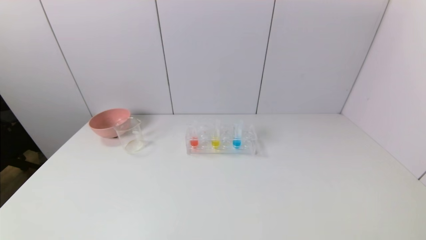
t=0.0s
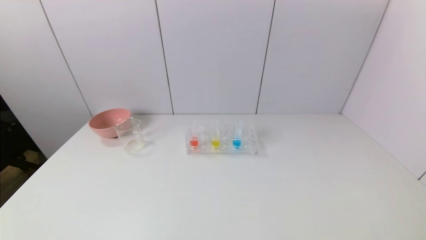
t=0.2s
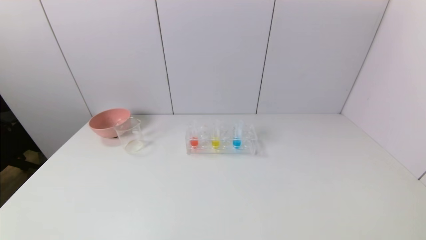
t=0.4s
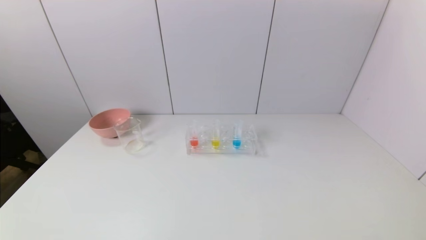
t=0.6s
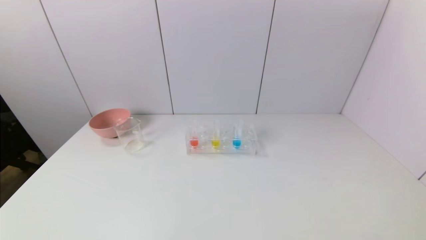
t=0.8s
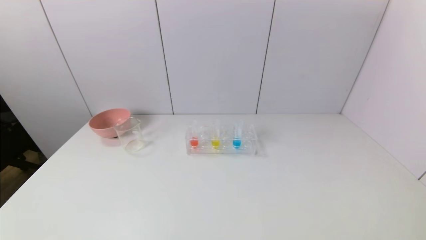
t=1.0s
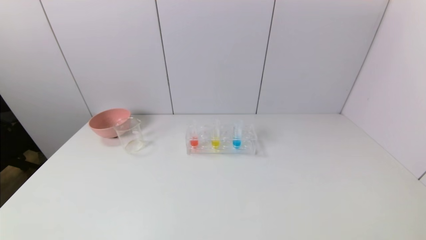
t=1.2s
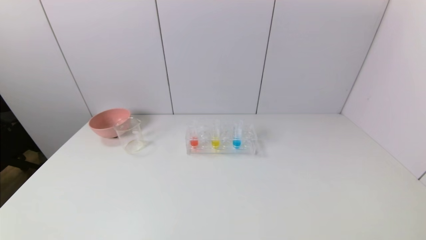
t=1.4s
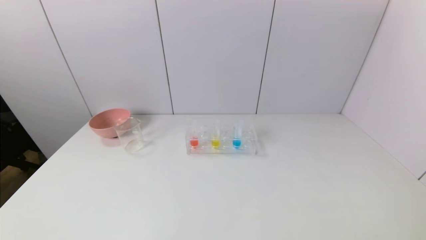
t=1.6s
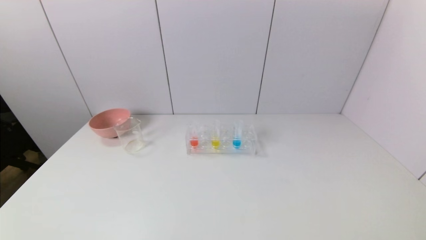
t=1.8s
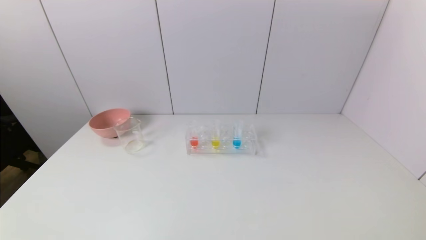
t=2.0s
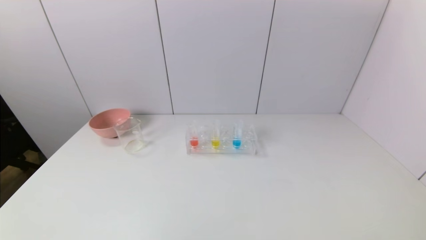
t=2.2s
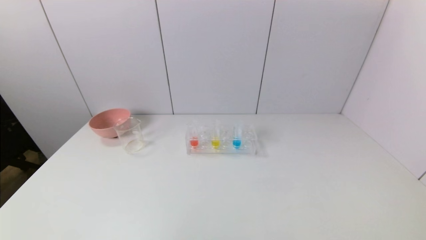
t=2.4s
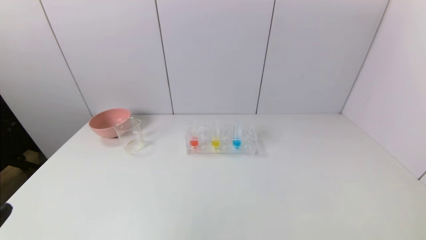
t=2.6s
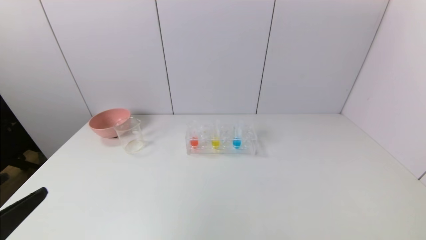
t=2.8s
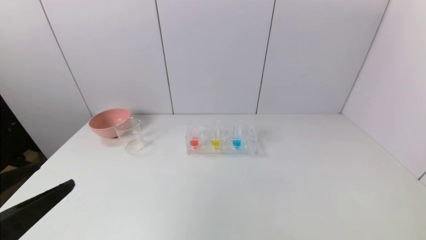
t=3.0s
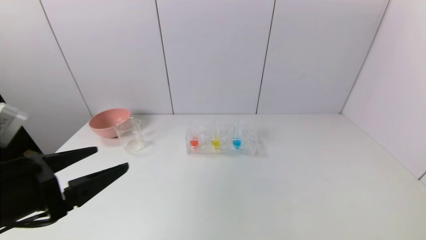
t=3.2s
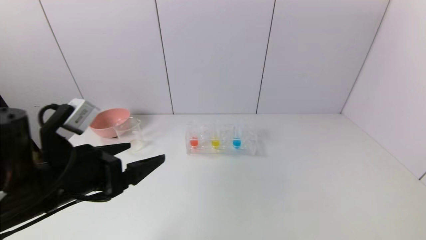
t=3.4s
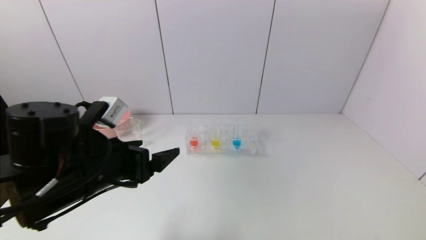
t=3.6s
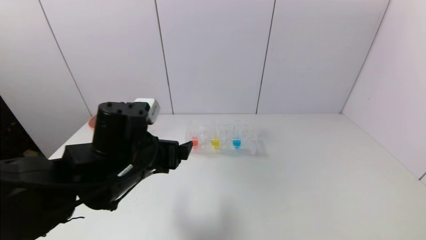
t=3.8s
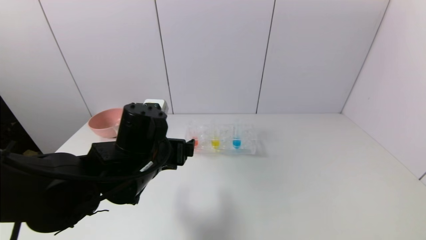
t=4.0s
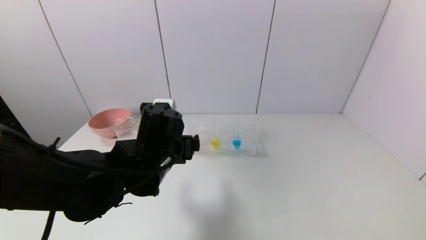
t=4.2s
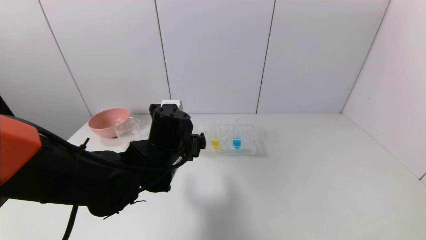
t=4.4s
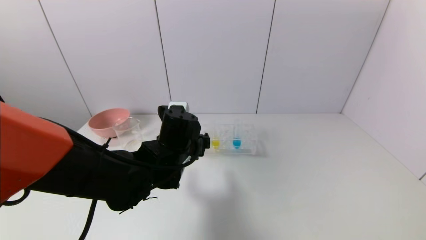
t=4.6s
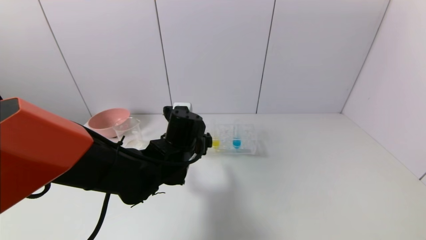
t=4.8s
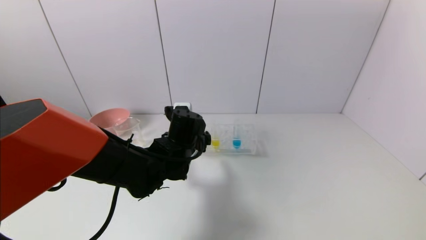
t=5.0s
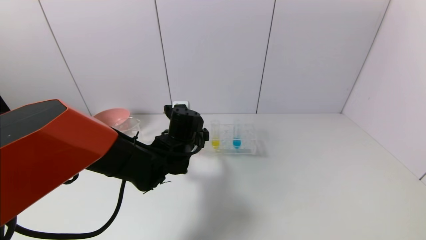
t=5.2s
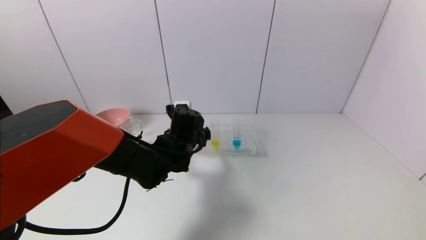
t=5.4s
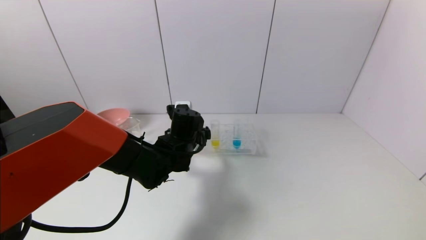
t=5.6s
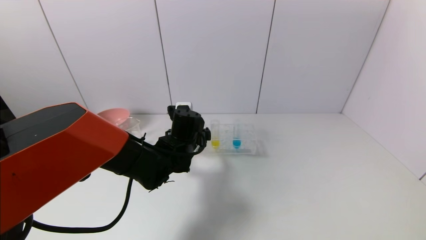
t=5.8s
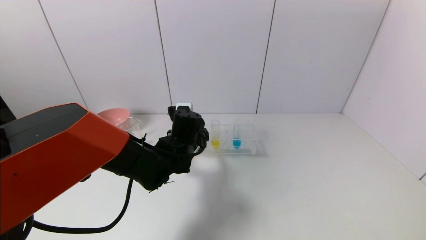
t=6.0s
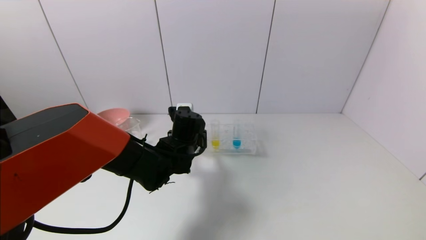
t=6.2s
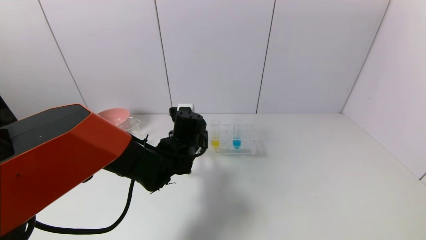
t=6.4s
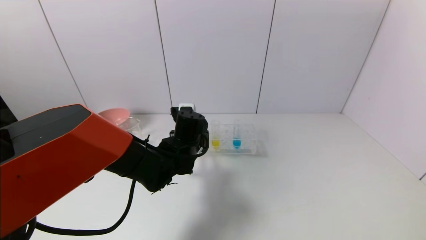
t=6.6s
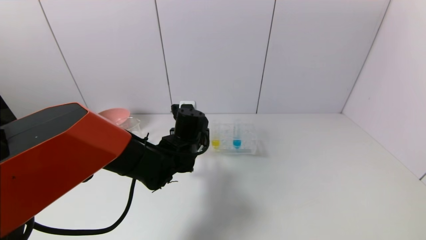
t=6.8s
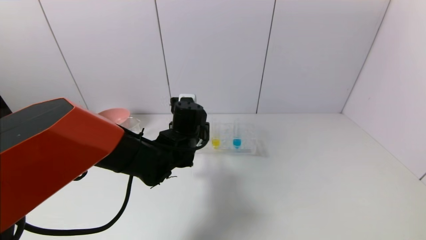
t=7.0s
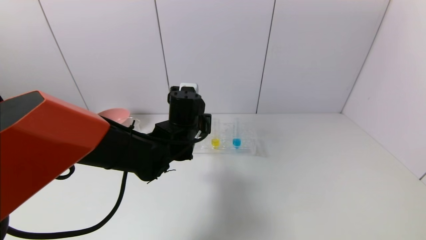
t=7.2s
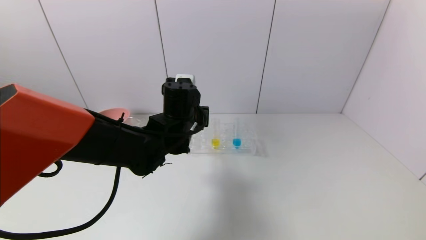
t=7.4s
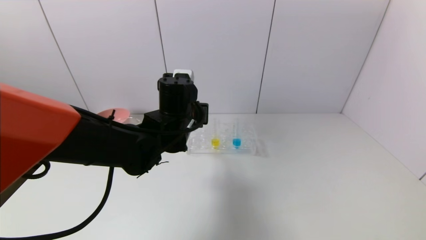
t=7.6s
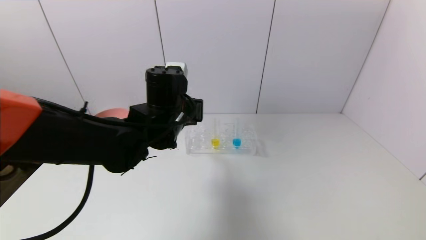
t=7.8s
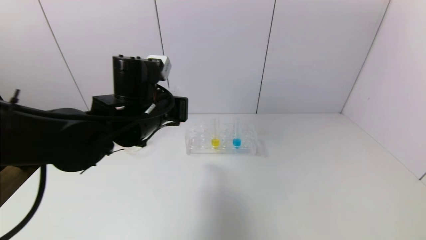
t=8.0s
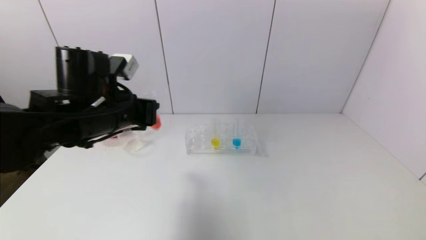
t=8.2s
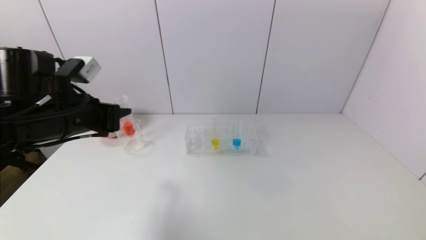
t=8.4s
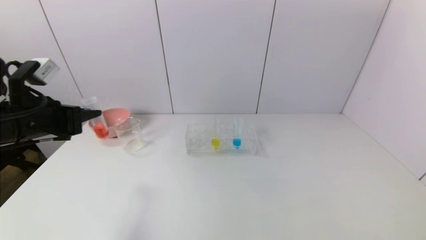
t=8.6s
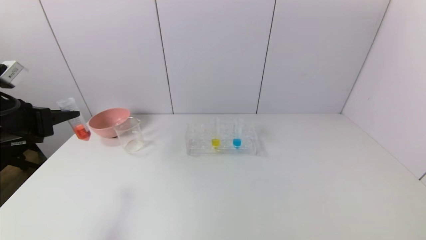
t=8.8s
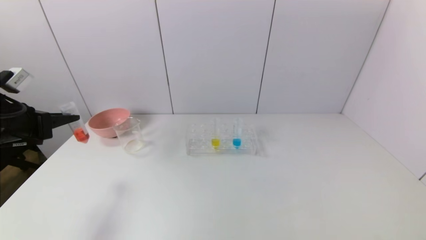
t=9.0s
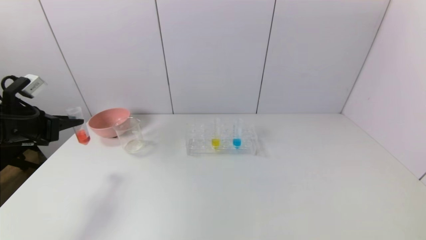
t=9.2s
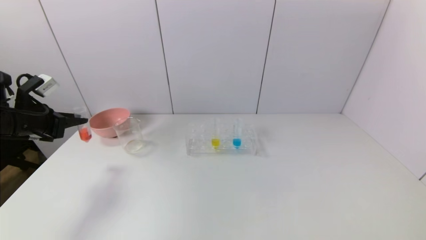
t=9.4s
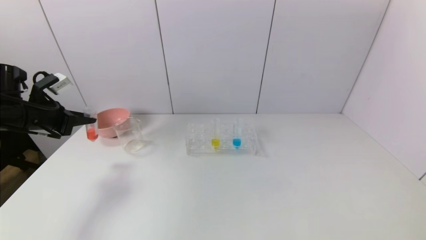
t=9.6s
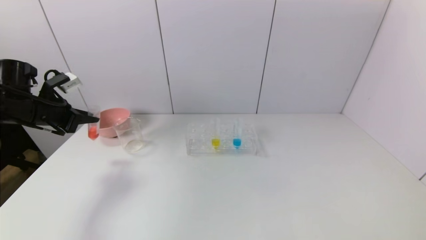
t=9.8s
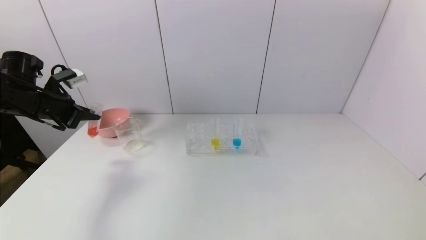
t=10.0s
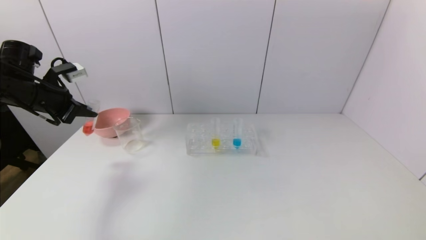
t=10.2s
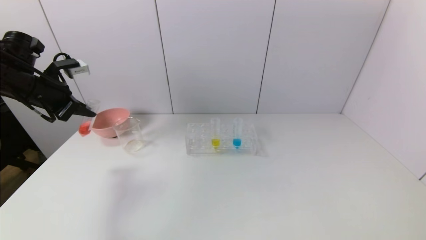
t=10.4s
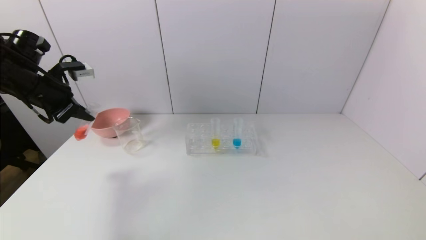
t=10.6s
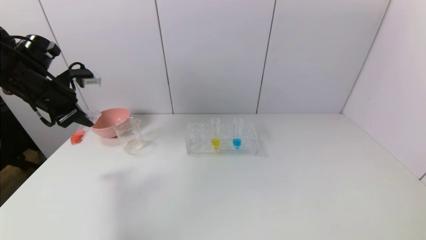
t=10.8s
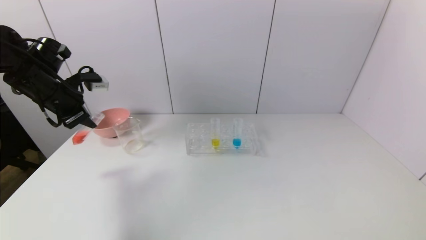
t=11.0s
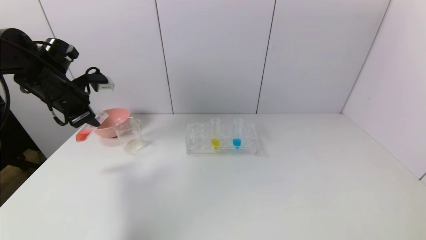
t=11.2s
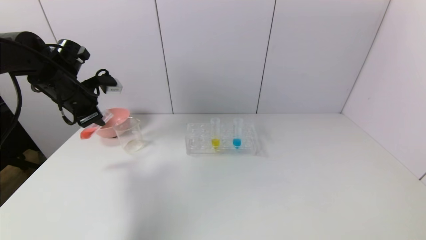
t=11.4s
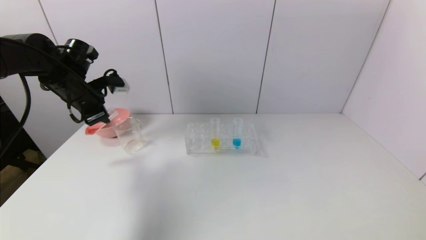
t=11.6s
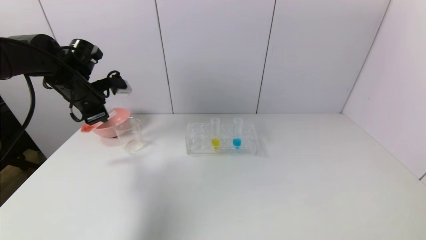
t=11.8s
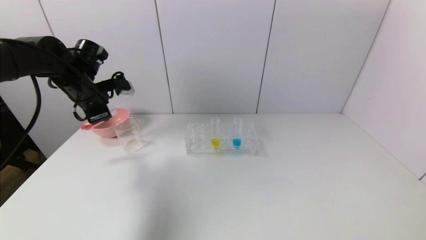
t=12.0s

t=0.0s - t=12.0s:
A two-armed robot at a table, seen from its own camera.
Task of the whole recording: pick up the test tube with yellow pigment and the test tube with red pigment by grippers and pour them into the beaker.
Step, t=0.0s - t=6.6s: Grasp the red reagent with the left gripper.
t=0.0s - t=1.6s: Both grippers stay put.
t=1.6s - t=3.0s: The left gripper heads upward and forward, covering some 15 cm.
t=3.0s - t=4.4s: The left gripper travels to the right and forward by roughly 25 cm.
t=4.4s - t=6.0s: The left gripper travels forward by some 5 cm.
t=6.0s - t=7.6s: The left gripper shifts some 10 cm upward, and closes up.
t=7.6s - t=9.0s: The left gripper moves to the left, about 30 cm.
t=9.0s - t=10.4s: The left gripper travels forward by about 10 cm.
t=10.4s - t=12.0s: The left gripper heads to the right, covering roughly 5 cm.

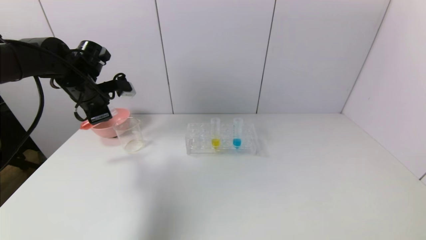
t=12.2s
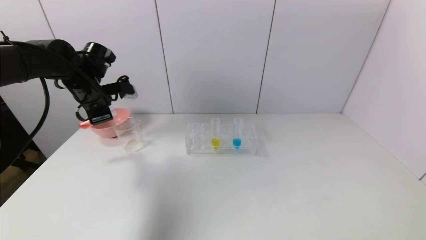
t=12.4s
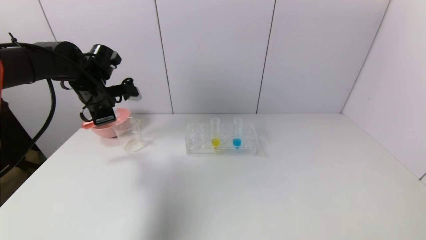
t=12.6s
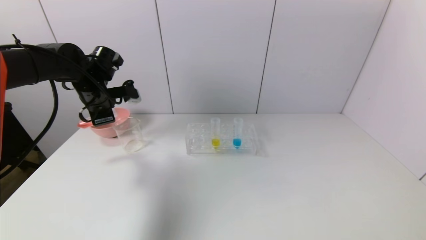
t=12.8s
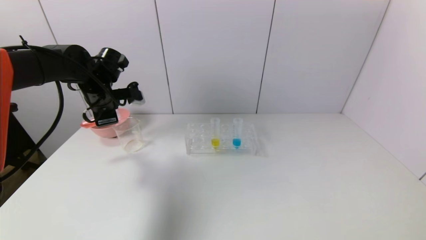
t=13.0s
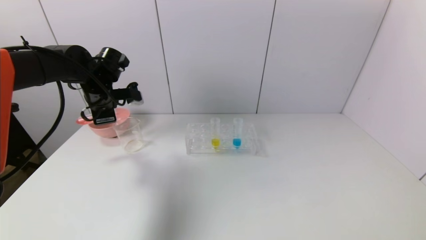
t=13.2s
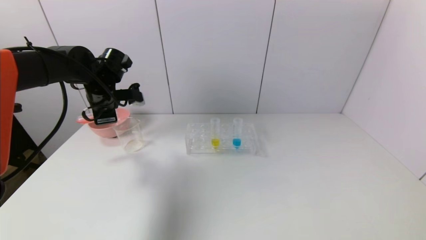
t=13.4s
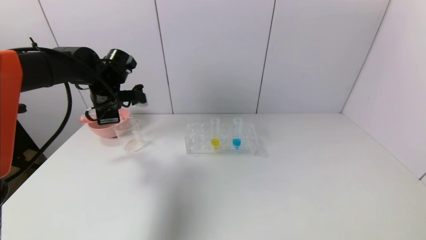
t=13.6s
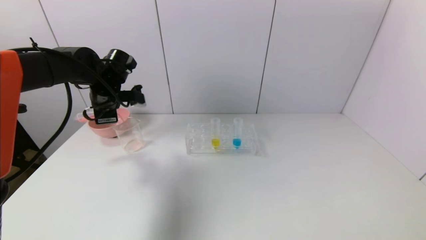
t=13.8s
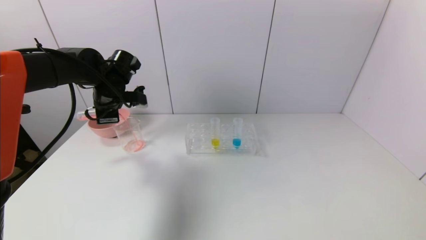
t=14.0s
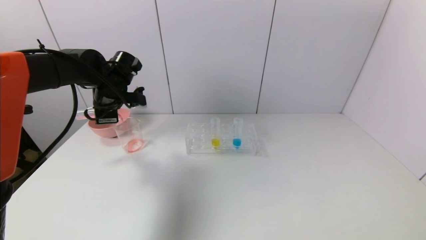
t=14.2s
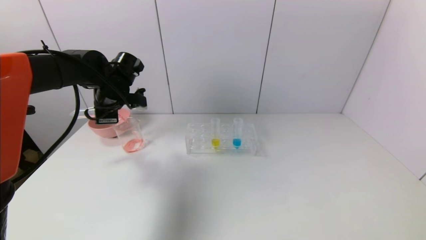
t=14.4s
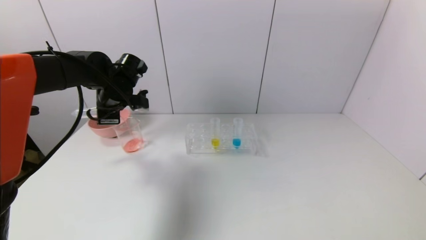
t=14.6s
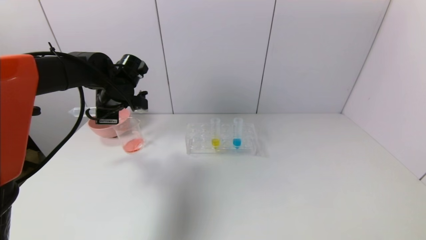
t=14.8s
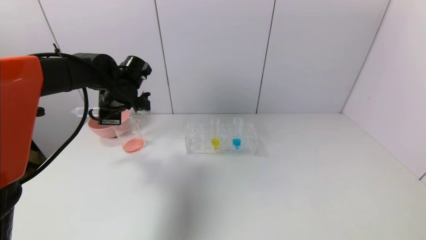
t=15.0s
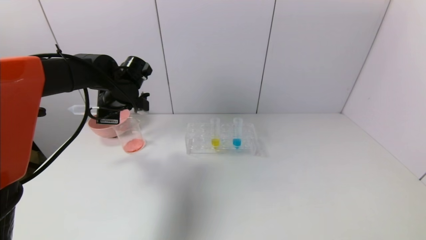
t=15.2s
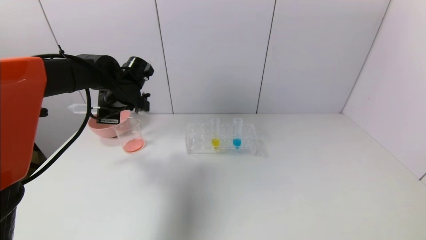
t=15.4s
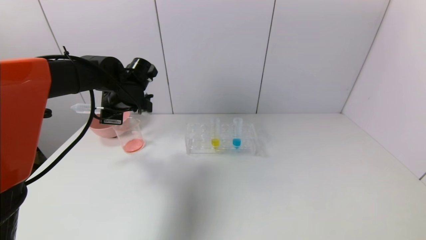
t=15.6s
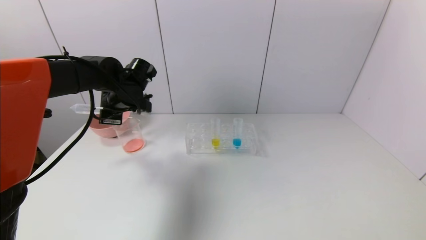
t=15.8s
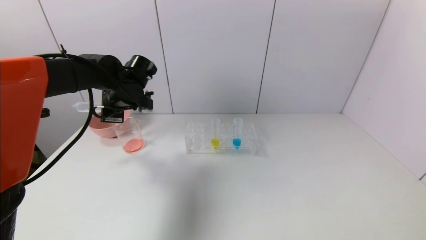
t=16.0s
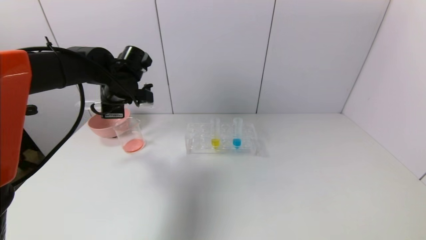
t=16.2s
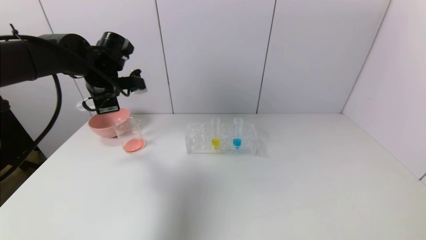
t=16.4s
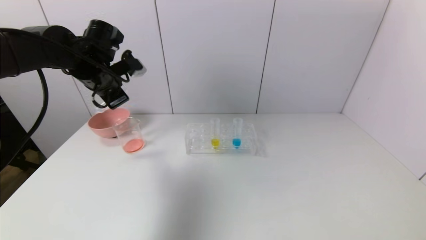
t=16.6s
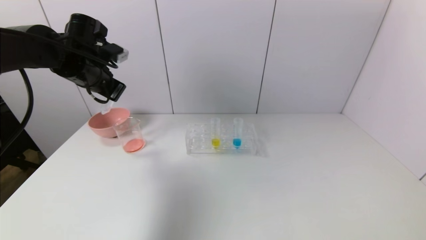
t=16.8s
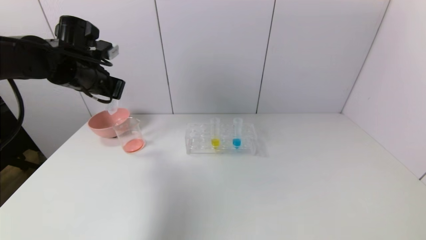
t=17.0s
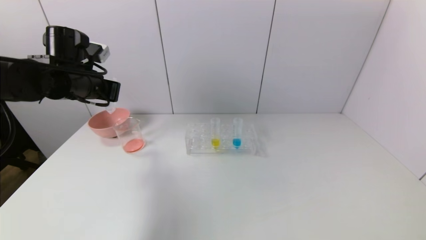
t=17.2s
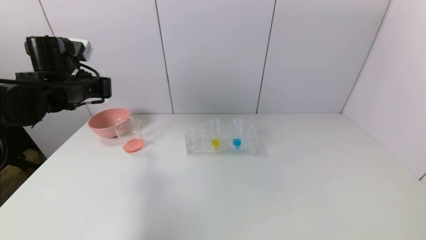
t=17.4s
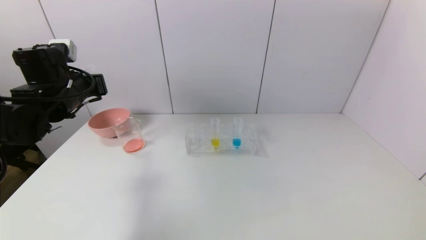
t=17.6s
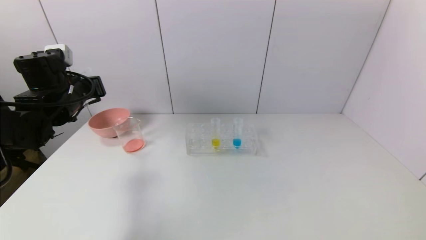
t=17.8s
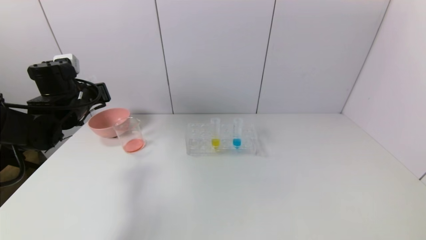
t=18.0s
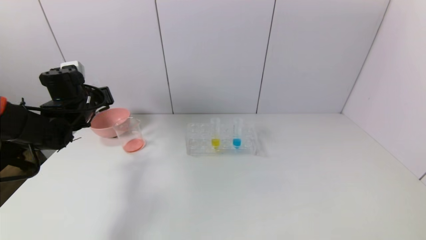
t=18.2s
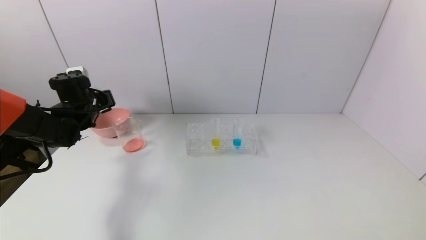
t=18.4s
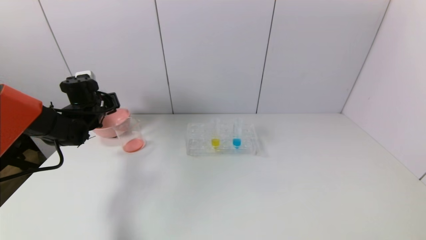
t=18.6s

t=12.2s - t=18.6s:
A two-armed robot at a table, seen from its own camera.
Task of the whole recording: pick up the test tube with yellow pigment and the test tube with red pigment by grippers and pour them into the beaker.
Step, t=12.2s - t=15.6s: Pour the red reagent into the graduated cylinder with the left gripper.
t=13.8s - t=15.4s: There are only small adjustments of the grippers.
t=15.4s - t=17.0s: The left gripper is displaced upward and to the left by roughly 10 cm.
t=17.0s - t=18.6s: The left gripper travels downward, forward and to the left by approximately 15 cm.
